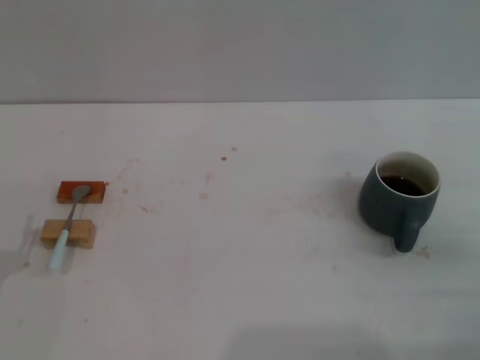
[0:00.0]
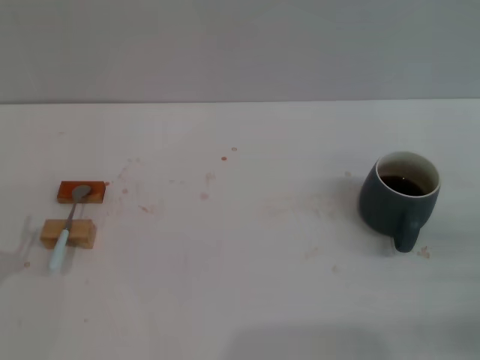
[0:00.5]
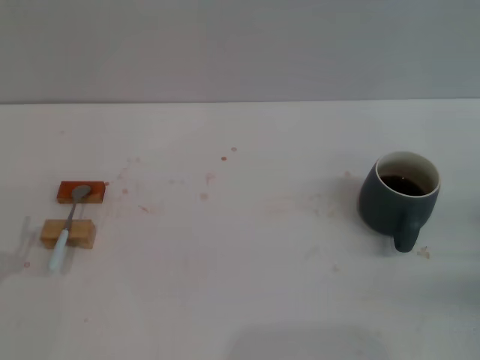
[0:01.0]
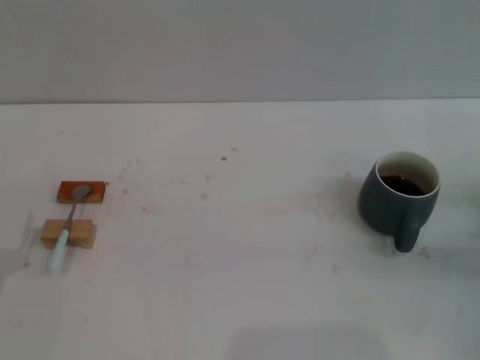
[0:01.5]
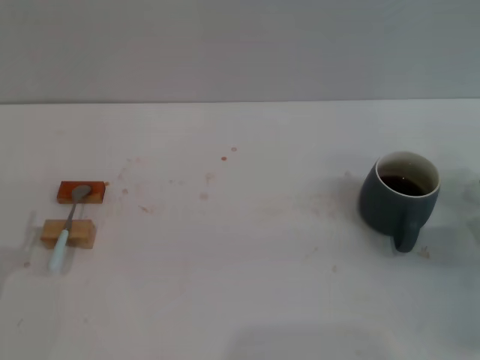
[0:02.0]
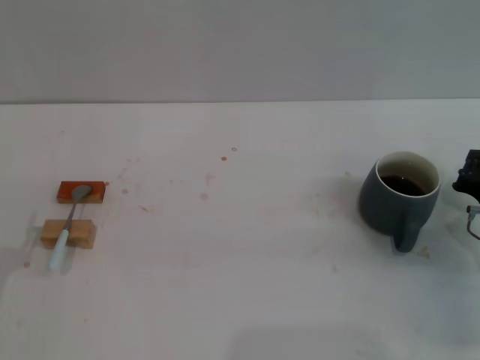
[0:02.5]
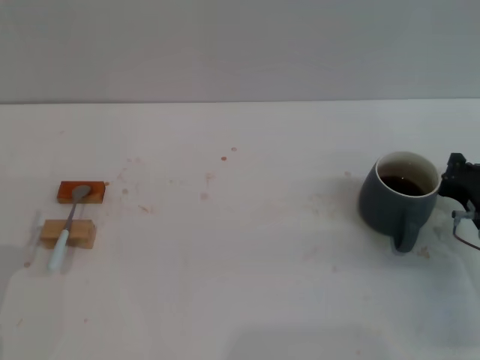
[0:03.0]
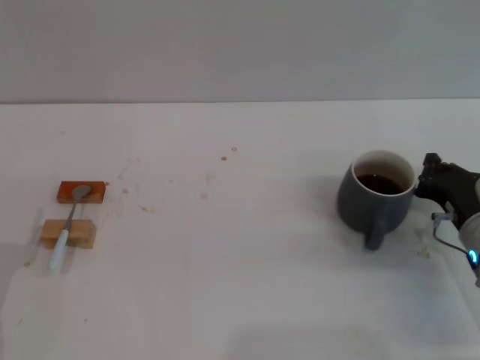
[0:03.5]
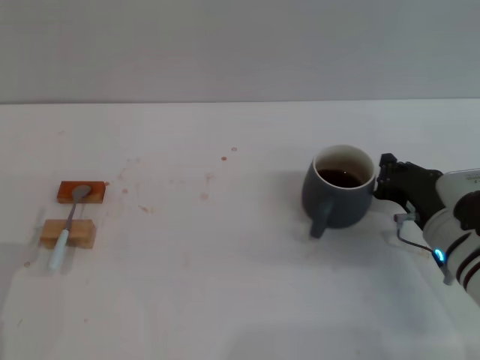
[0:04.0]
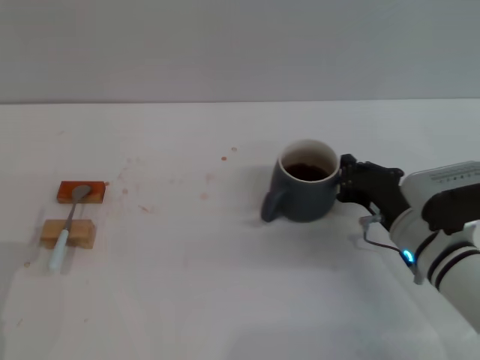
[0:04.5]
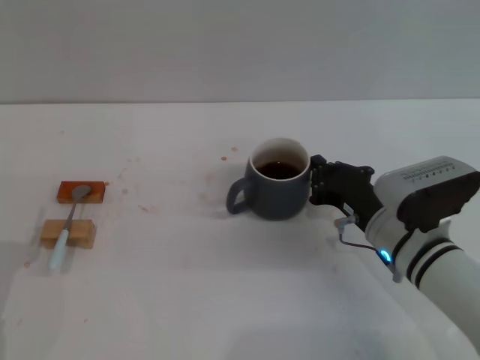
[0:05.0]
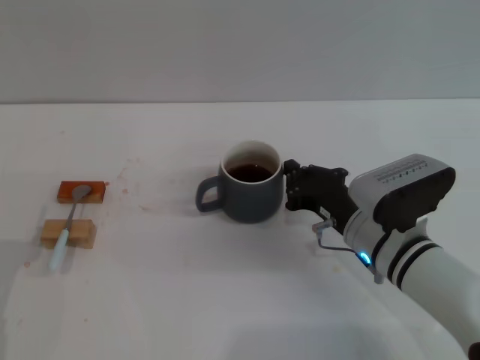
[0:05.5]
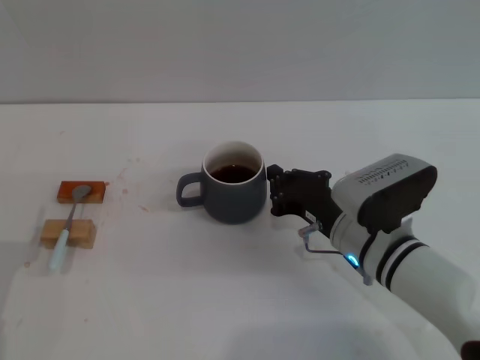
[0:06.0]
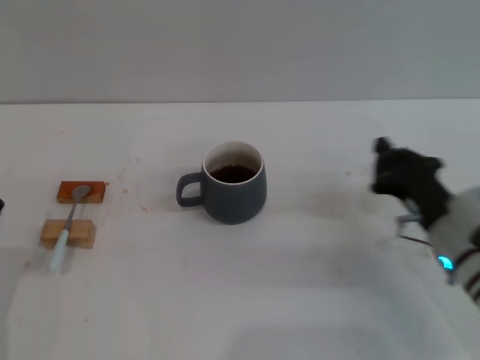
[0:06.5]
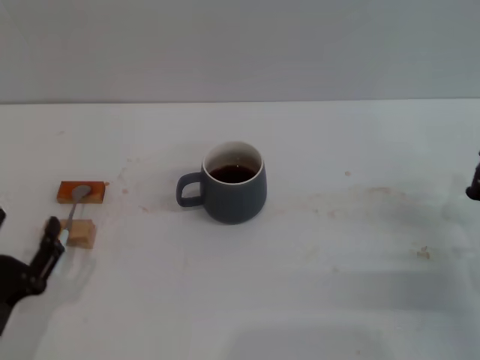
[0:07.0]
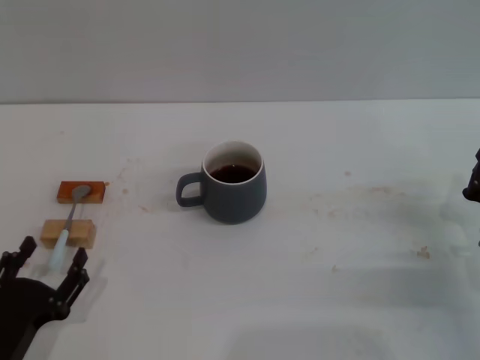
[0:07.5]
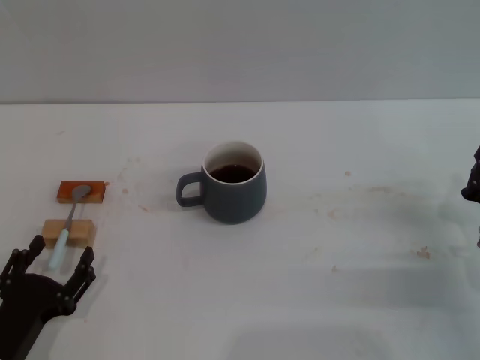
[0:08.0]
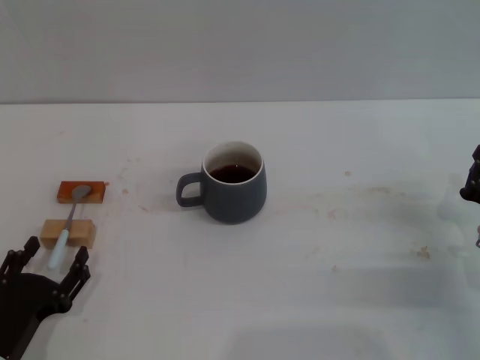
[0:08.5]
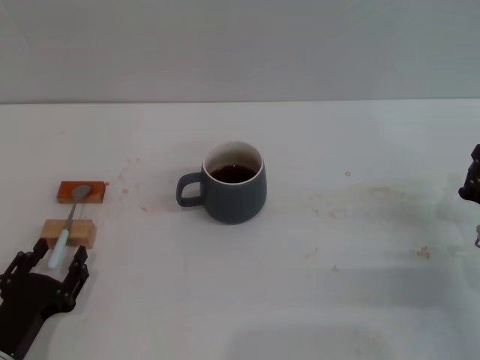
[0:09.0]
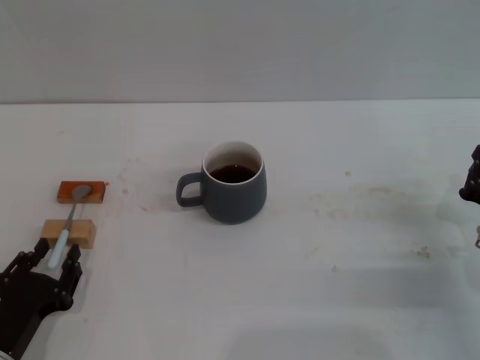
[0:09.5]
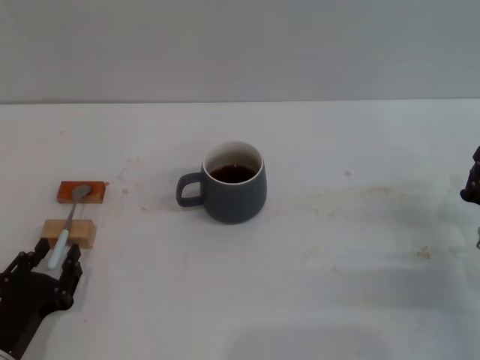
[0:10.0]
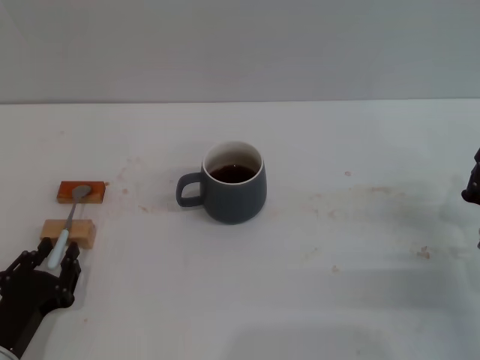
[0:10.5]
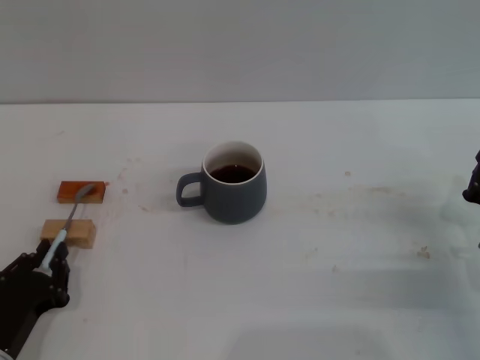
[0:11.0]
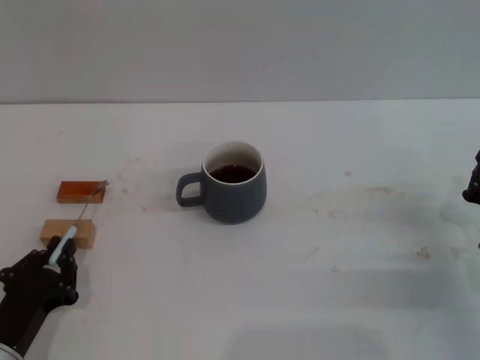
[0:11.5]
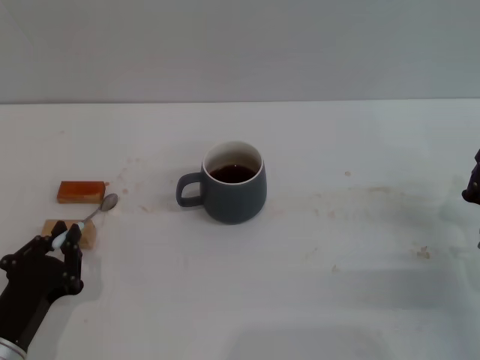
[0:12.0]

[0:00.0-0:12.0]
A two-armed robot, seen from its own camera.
Task of the whole recording: Move the grey cup to the center, lift the blue spoon, stir it three times in the cup, and put the spoon into the cup.
Step, 0:00.0 to 0:06.0: Move the cup with coffee to the center of view with the right gripper.
0:00.0 to 0:02.0: The right gripper travels forward by approximately 10 cm.
0:02.0 to 0:04.0: The right gripper shifts roughly 10 cm to the left.
0:04.0 to 0:06.0: The right gripper shifts approximately 10 cm to the left.
0:06.0 to 0:08.0: The right gripper goes roughly 15 cm to the right. Meanwhile the left gripper shifts by some 5 cm.
0:08.0 to 0:10.0: The left gripper closes.
0:10.0 to 0:12.0: The left gripper closes.

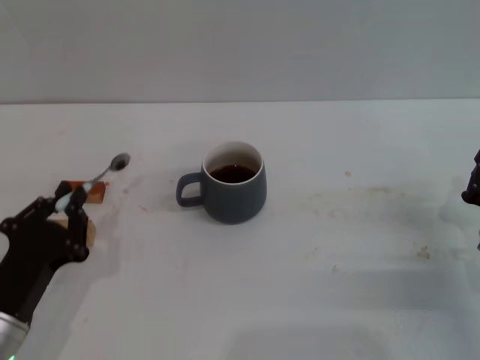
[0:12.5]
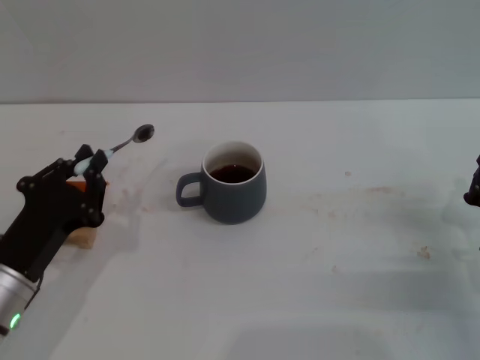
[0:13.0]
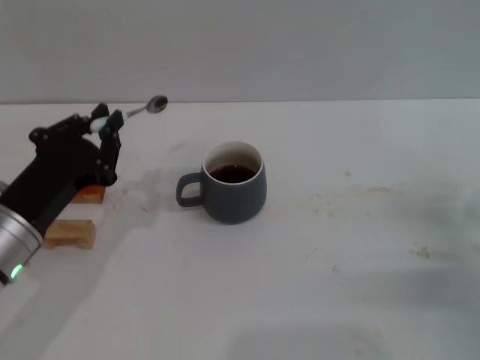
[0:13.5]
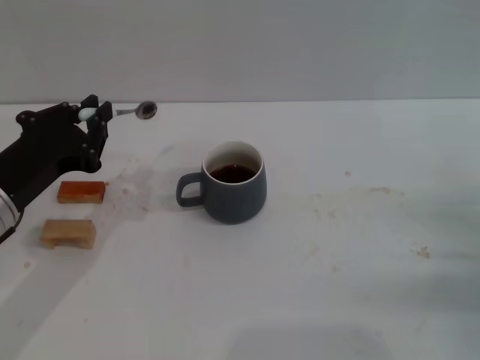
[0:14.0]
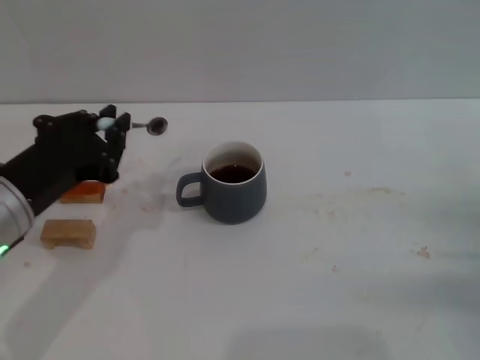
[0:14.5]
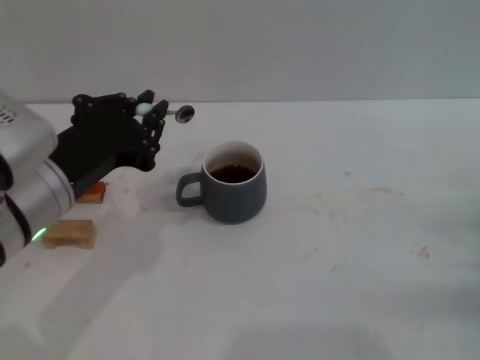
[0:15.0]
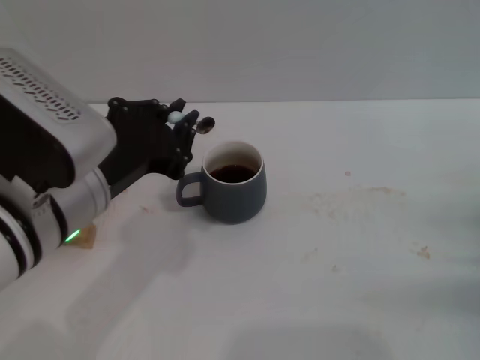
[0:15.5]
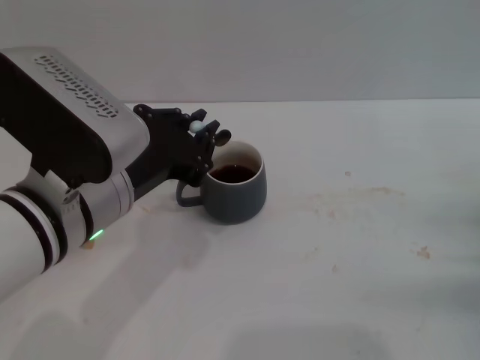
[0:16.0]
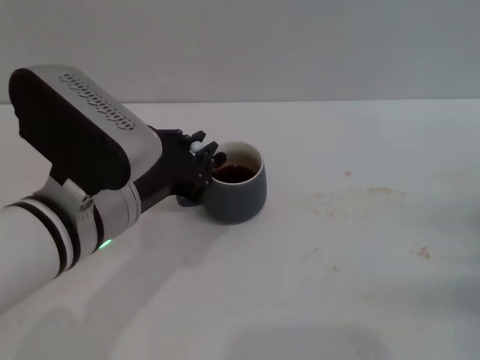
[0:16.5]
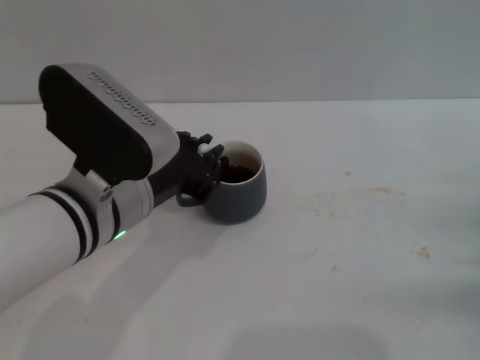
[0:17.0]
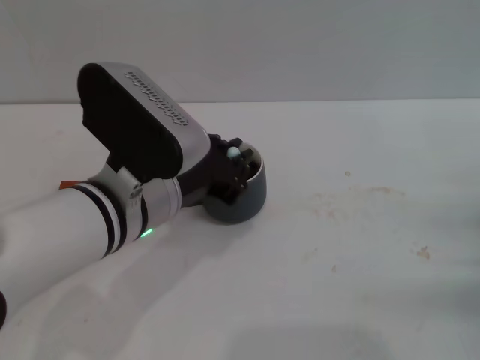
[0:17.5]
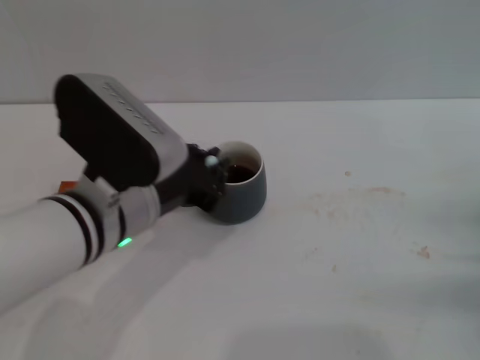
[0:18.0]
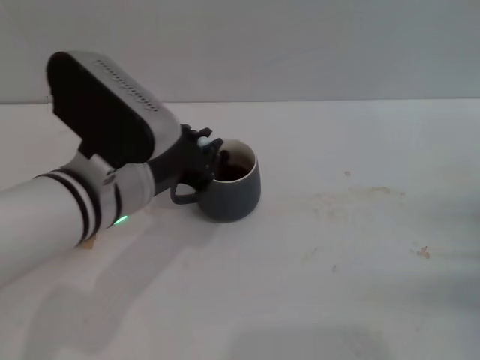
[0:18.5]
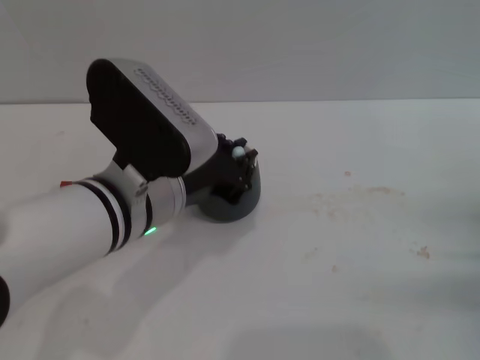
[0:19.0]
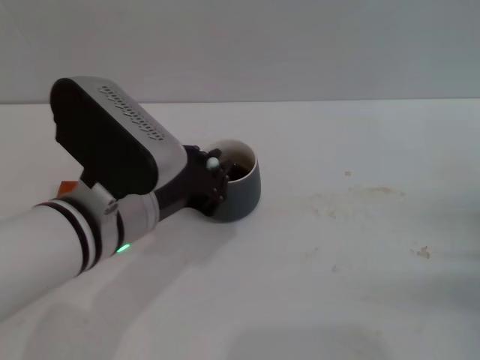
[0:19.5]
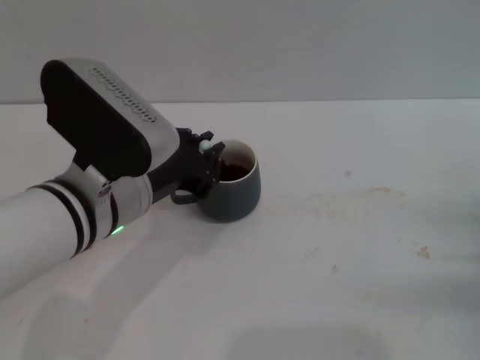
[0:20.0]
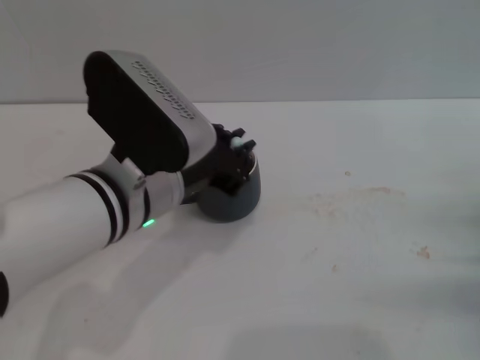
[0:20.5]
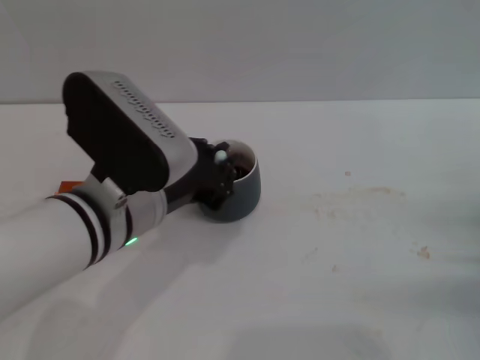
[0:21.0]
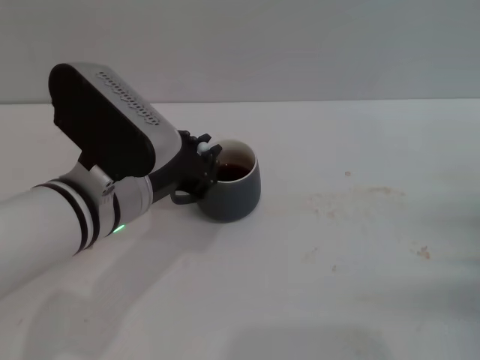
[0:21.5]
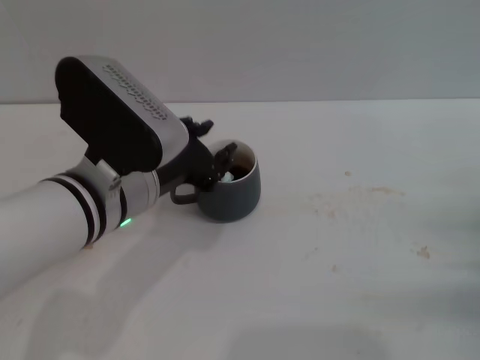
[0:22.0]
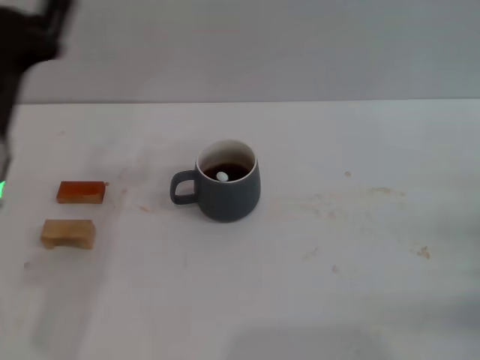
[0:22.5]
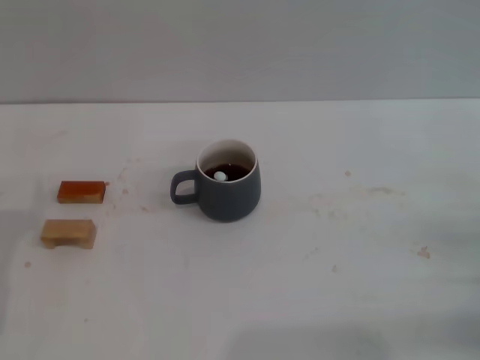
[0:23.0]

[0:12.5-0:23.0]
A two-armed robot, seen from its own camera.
Task of the whole recording: Move the grey cup to the center, lift the blue spoon, stir it three times in the cup, and put the spoon into the cup.
Step, 0:13.0 to 0:22.0: Stir the coffee in the cup with the left gripper.
0:12.5 to 0:14.5: The left gripper moves upward and forward, approximately 15 cm.
0:14.5 to 0:16.5: The left gripper travels to the right by roughly 10 cm.
0:16.5 to 0:21.0: The grippers make only small movements.
0:21.0 to 0:23.0: The left gripper moves to the left and downward, roughly 20 cm, and opens.
